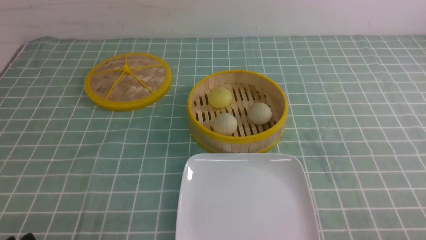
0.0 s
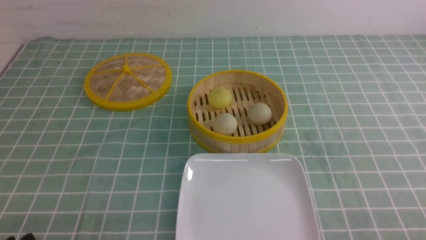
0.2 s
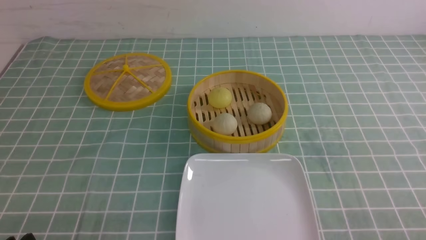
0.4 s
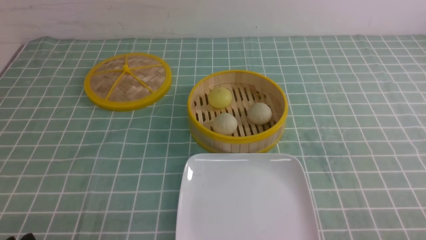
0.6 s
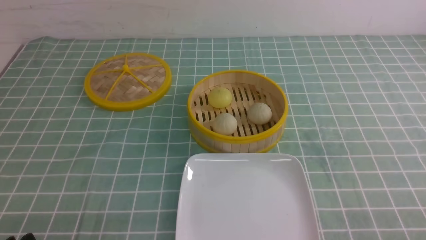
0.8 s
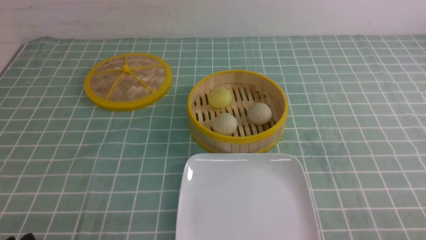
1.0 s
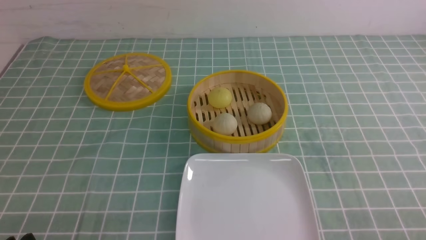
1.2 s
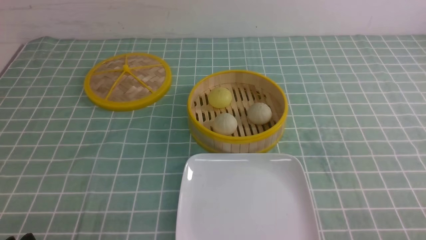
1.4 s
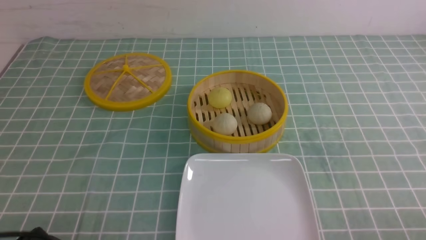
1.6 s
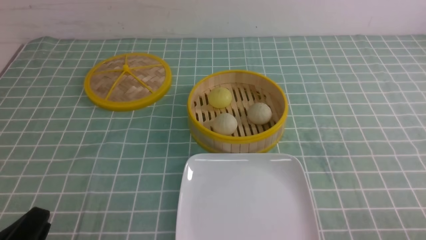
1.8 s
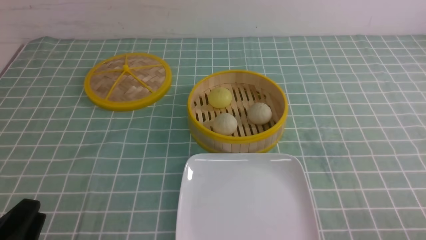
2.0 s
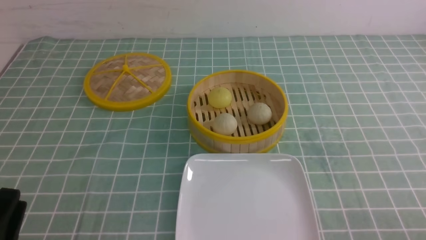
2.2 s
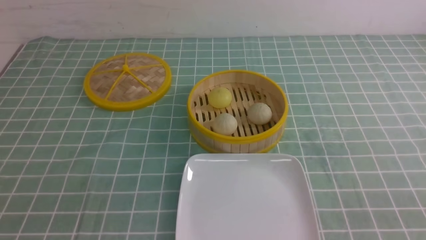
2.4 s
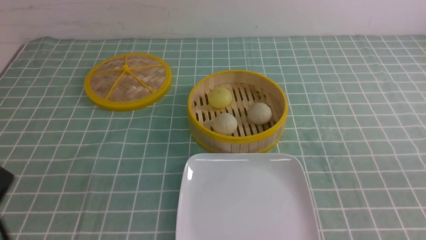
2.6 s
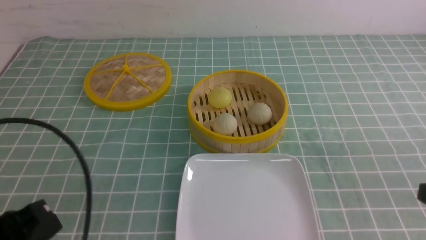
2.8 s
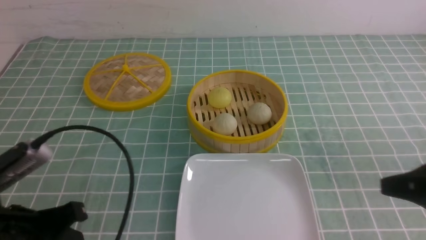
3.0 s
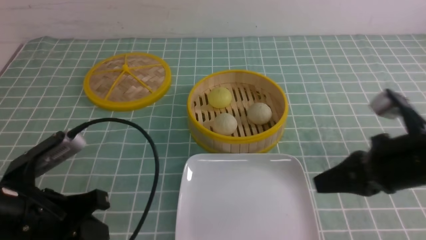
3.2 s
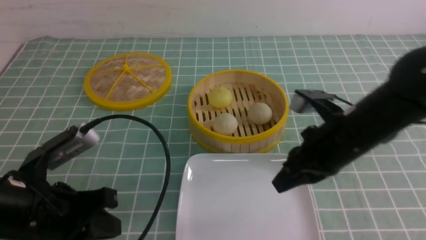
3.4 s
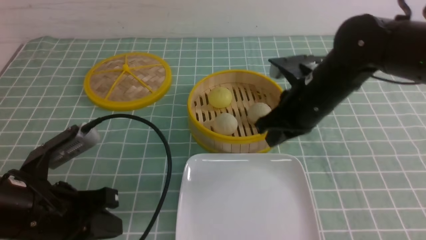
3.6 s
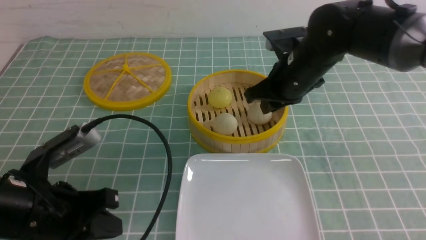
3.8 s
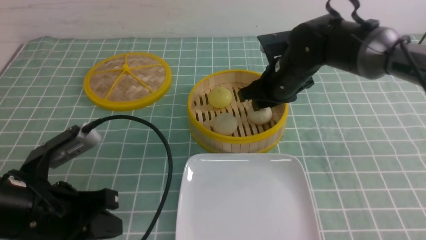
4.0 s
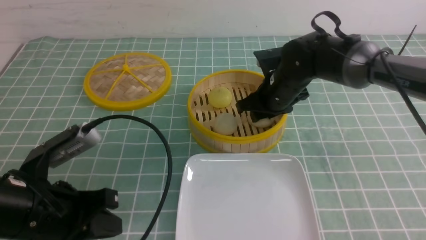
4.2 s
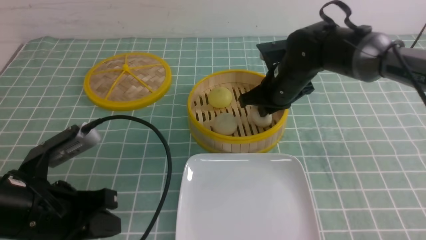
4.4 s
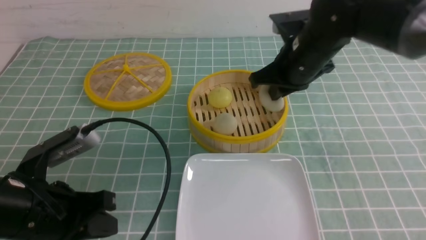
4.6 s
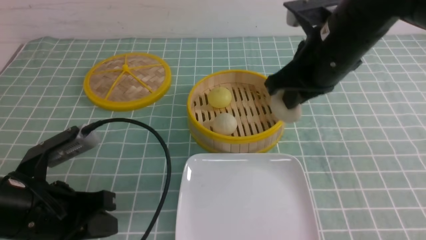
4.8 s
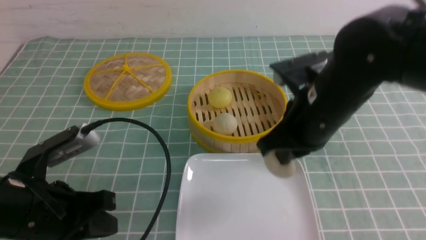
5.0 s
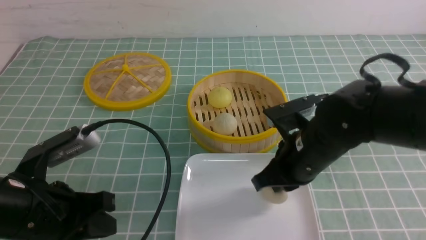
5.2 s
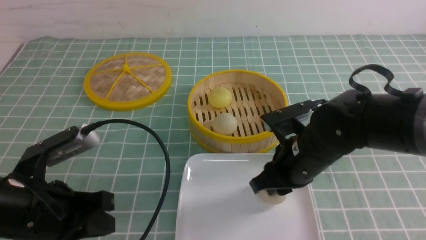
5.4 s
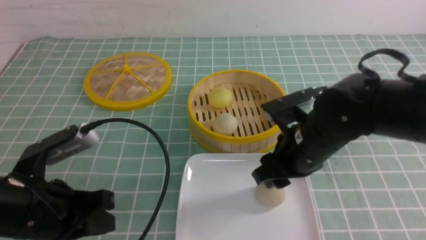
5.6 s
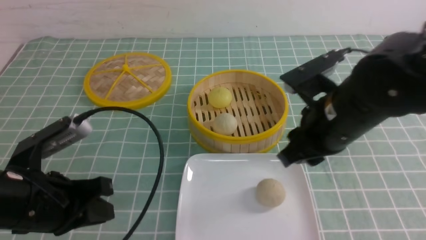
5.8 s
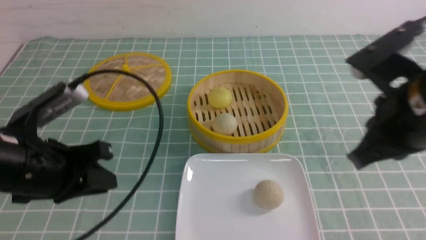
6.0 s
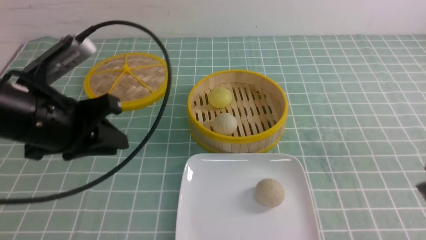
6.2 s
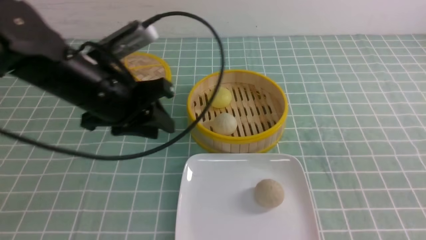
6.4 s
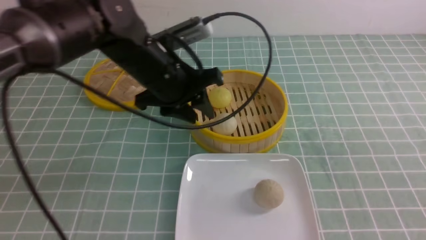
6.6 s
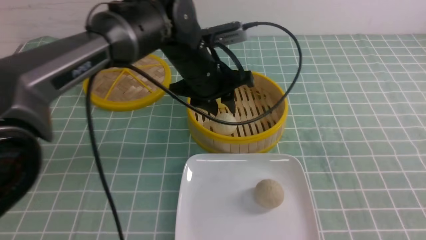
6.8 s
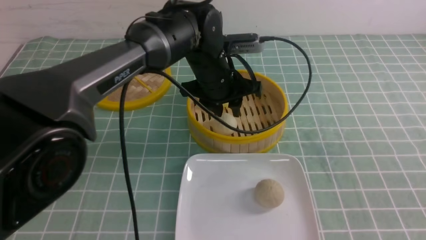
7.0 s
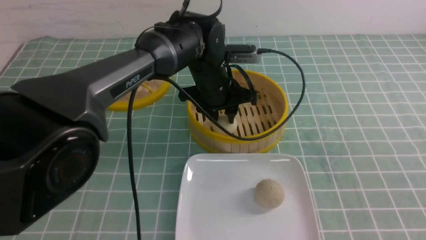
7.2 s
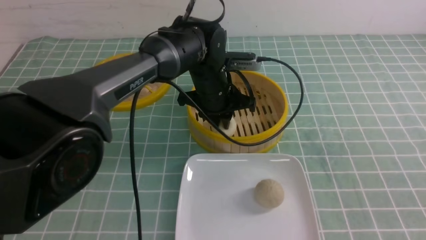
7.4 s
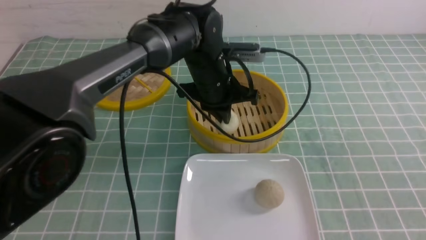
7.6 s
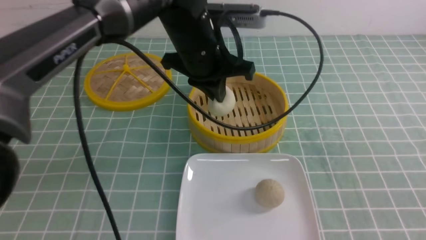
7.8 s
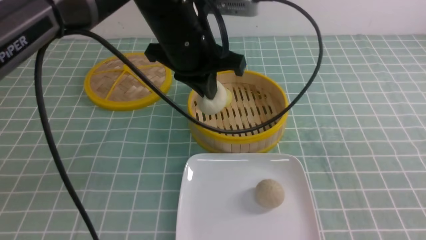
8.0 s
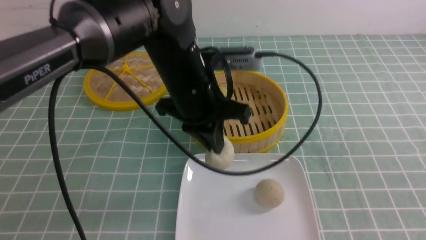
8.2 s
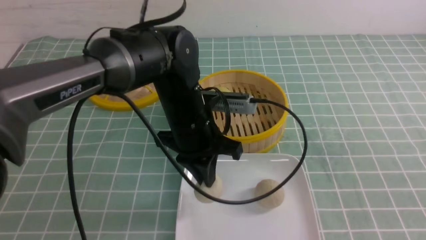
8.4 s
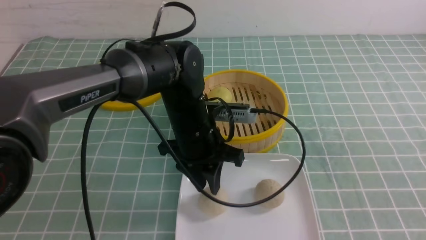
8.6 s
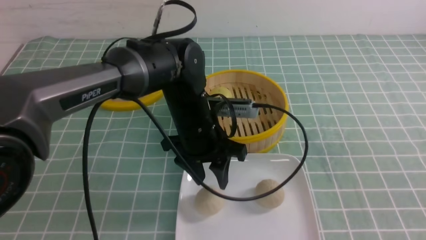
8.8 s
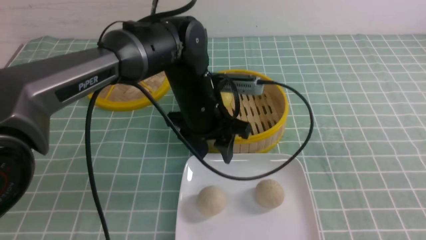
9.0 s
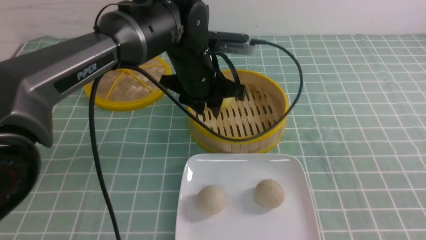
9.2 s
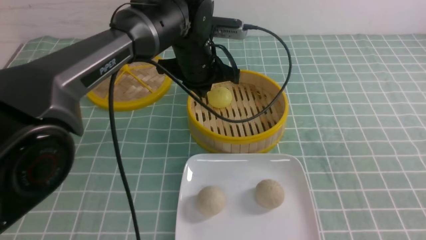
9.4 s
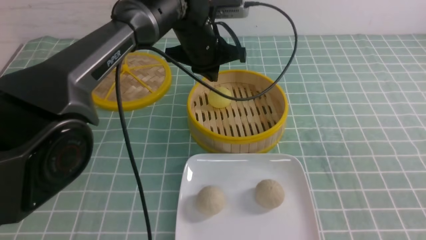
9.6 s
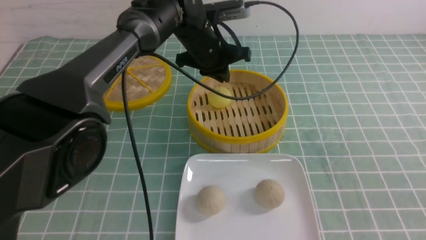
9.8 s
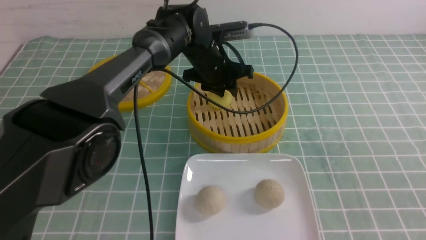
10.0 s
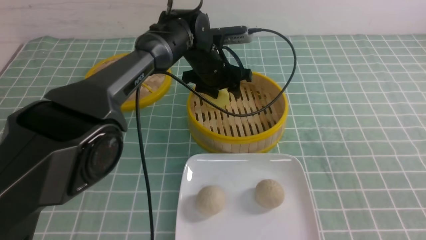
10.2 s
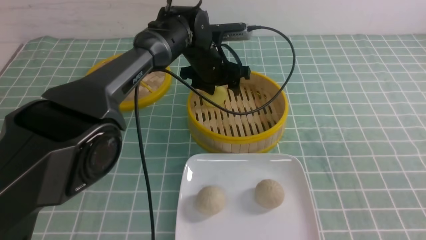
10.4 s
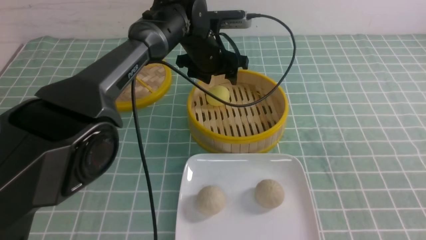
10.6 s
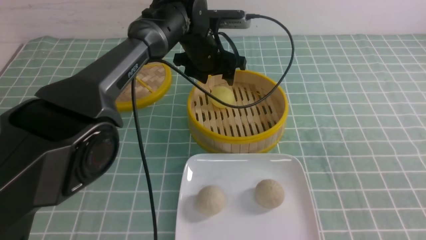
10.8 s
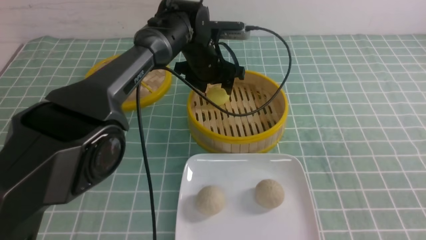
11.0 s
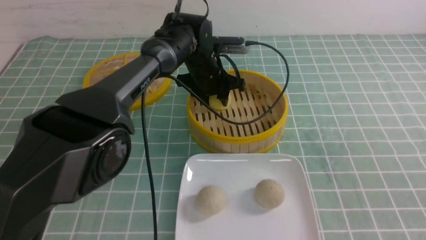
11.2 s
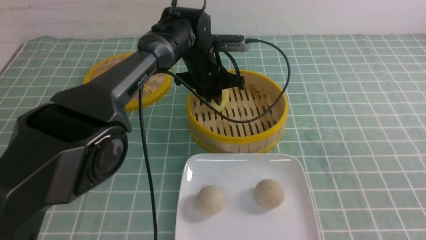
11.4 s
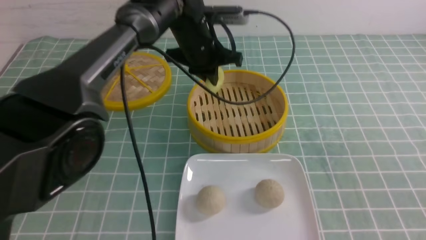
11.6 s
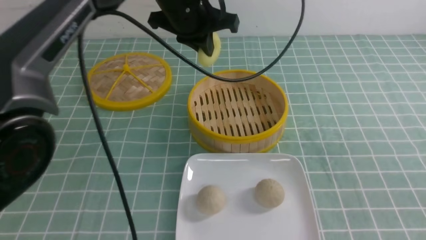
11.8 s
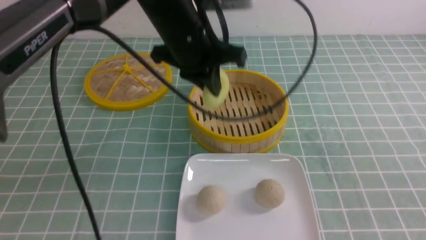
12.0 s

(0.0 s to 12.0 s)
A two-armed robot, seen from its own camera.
Step, 0.0 s - 4.2 s: use the right arm to grab the steamed stuffed bun that is closest to it.
Step, 4.4 s - 5.4 s: use the right arm to put the steamed stuffed bun into the plate.
Step, 5.8 s - 7.4 s: use the left arm to grab the steamed stuffed bun that is closest to it.
Step, 7.6 s - 8.6 s: use the left arm to put the steamed stuffed bun into the plate.
Step, 8.8 s - 11.2 s: use the left arm to grab the steamed stuffed bun that is closest to it.
1.6 s - 3.0 s: Both grippers move upward and forward, about 10 cm. The right gripper closes; the left gripper closes.
3.0 s - 4.4 s: The right gripper goes approximately 30 cm forward and to the left, and opens, then closes again. Meanwhile the left gripper moves forward, roughly 5 cm.
4.4 s - 6.0 s: The right gripper goes some 20 cm backward and upward, and closes, then opens again.
6.0 s - 7.6 s: The left gripper is displaced to the right and forward by roughly 30 cm, and opens, then closes again. Meanwhile the right gripper travels backward and to the right by roughly 15 cm, and closes.
7.6 s - 9.0 s: The left gripper heads backward, covering some 5 cm, moves approximately 10 cm upward and comes back, and opens up.
9.0 s - 10.4 s: The left gripper shifts roughly 15 cm forward, and closes, then reopens.
10.4 s - 12.0 s: The left gripper shifts roughly 15 cm upward and backward, and closes up.

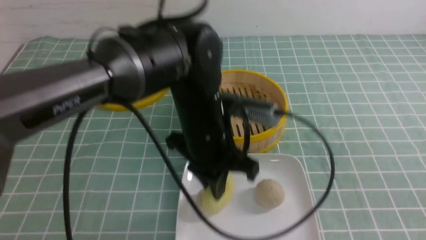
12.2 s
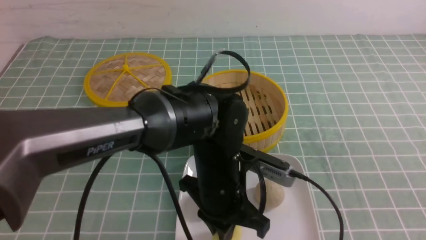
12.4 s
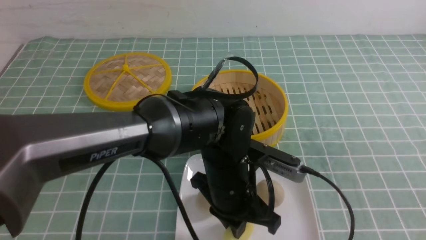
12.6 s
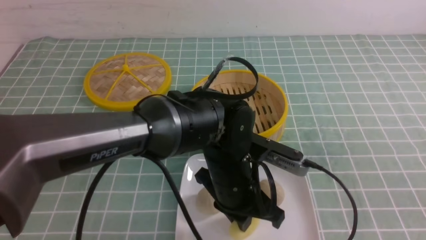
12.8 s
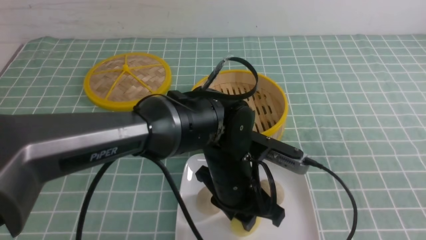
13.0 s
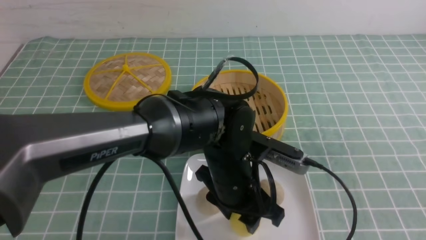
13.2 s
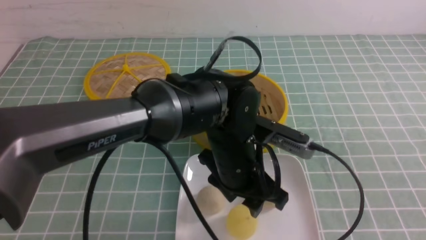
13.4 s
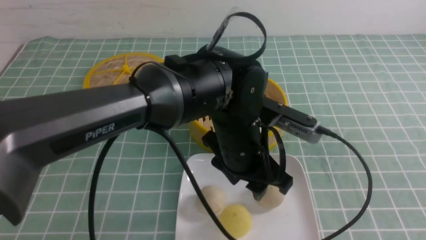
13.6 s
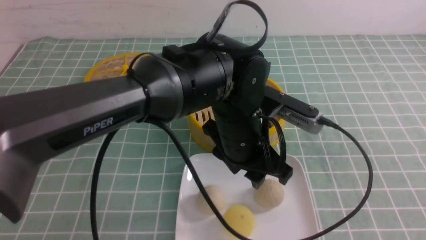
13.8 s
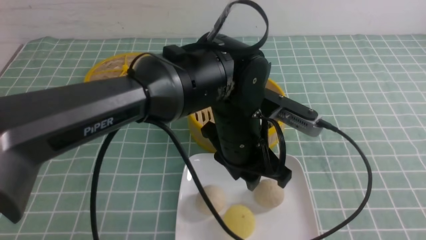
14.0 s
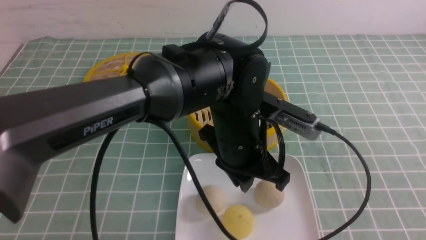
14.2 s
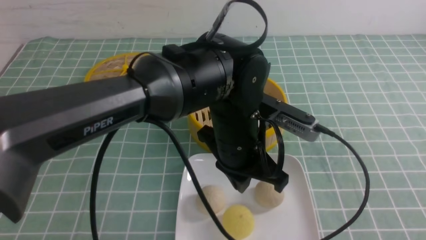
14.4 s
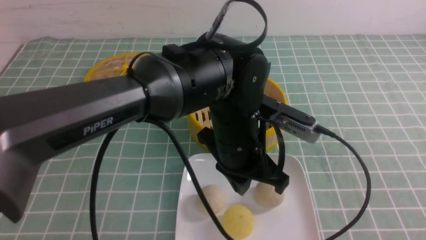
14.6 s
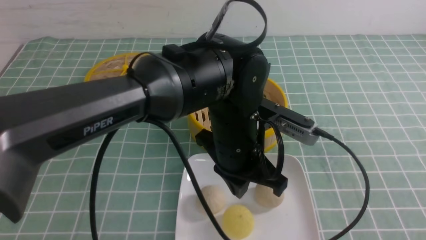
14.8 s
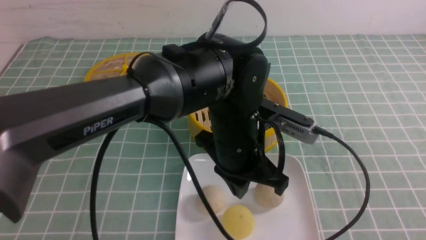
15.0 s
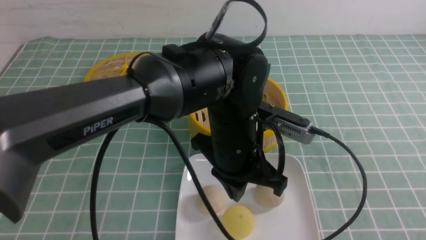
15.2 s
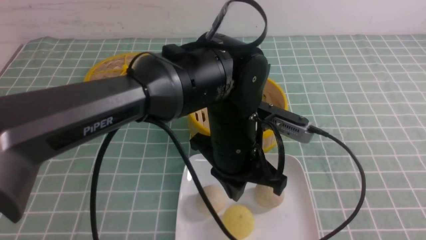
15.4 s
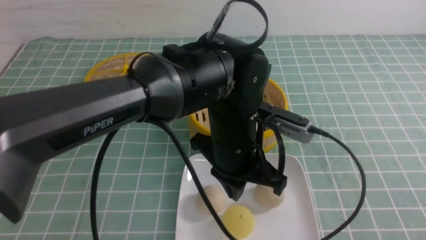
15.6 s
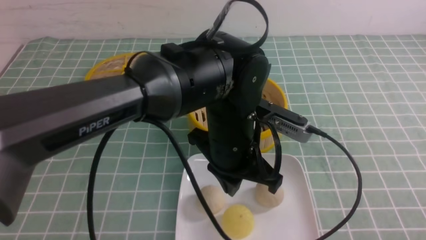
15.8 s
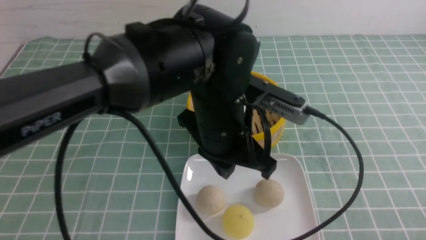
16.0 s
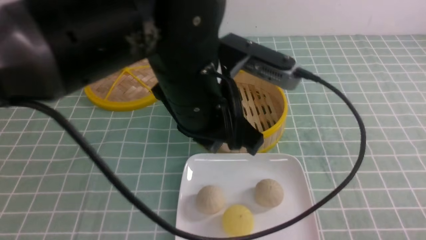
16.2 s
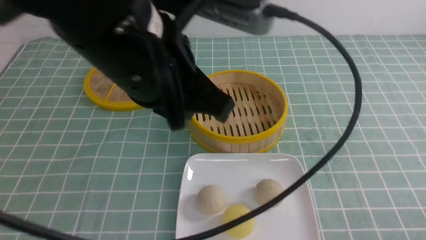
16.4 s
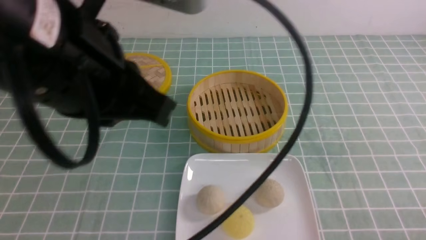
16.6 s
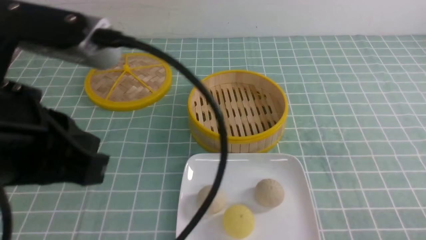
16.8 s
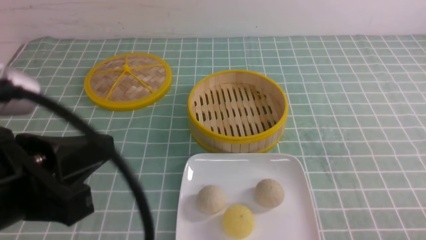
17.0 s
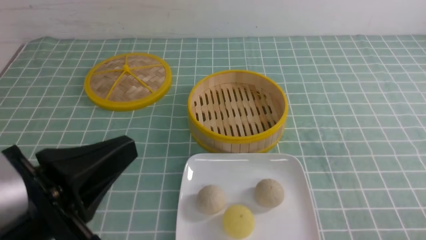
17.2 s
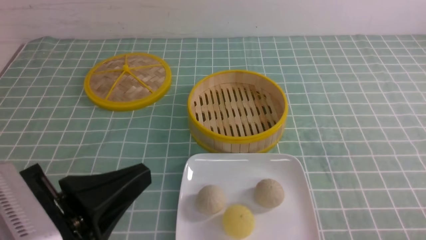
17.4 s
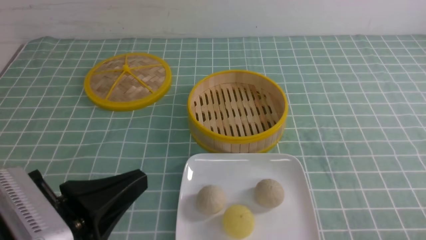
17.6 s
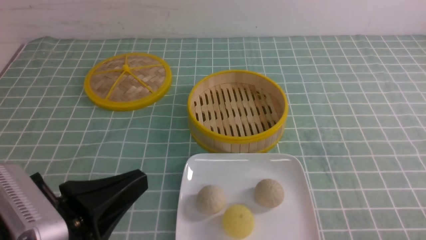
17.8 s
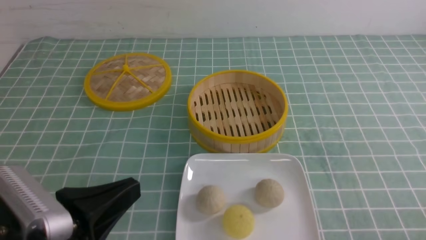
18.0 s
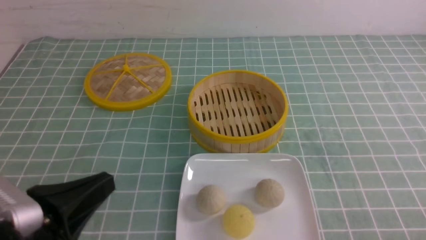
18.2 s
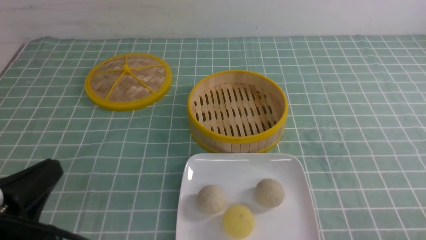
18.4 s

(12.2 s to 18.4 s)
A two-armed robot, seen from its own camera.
Step, 12.2 s - 13.2 s: use the left arm to put the steamed stuffed bun into the plate.
12.2 s - 13.8 s: The right gripper is displaced backward, upward and to the right by approximately 10 cm, while the left gripper shifts approximately 5 cm backward, and opens its fingers.
13.8 s - 15.4 s: The left gripper closes its fingers; the right gripper moves downward, approximately 5 cm.
15.4 s - 16.8 s: The left gripper travels to the left, upward and backward by about 25 cm; the right gripper heads downward, covering approximately 10 cm.
16.8 s - 18.4 s: The left gripper is displaced downward and to the left by about 15 cm.
